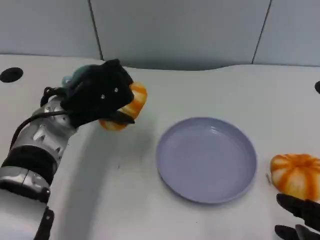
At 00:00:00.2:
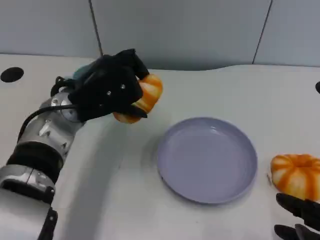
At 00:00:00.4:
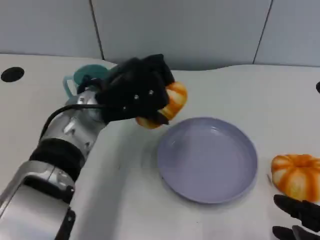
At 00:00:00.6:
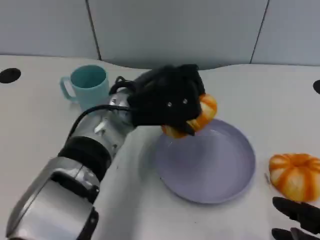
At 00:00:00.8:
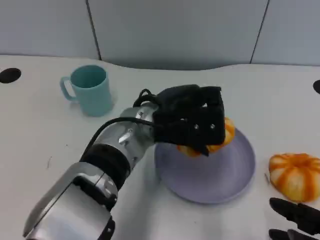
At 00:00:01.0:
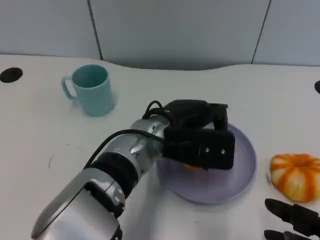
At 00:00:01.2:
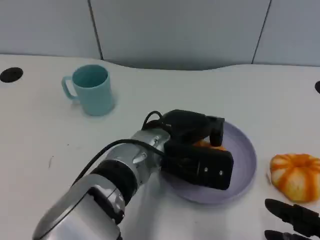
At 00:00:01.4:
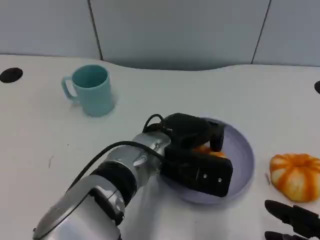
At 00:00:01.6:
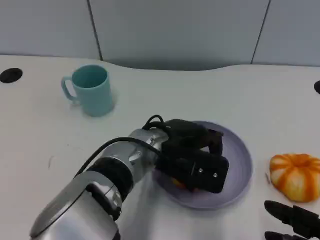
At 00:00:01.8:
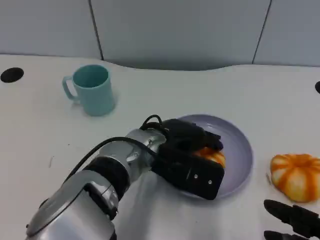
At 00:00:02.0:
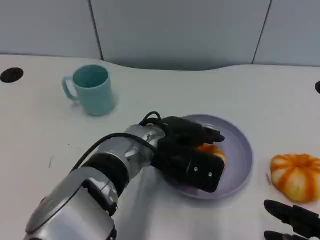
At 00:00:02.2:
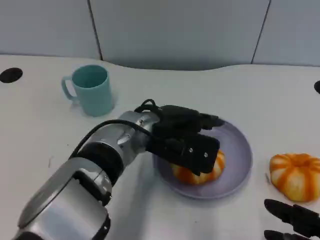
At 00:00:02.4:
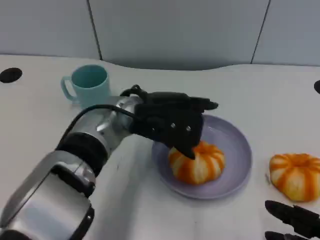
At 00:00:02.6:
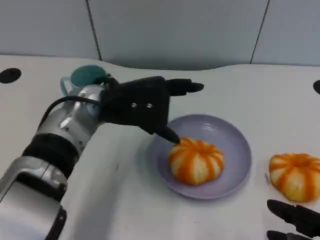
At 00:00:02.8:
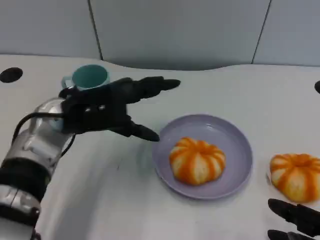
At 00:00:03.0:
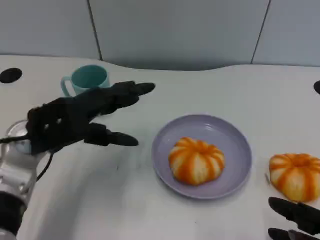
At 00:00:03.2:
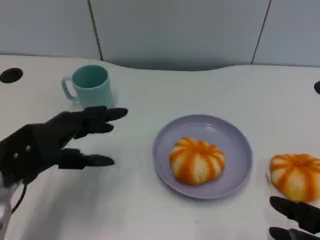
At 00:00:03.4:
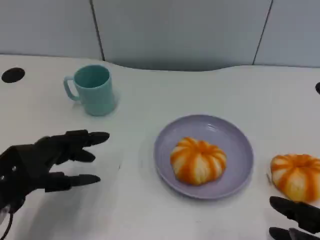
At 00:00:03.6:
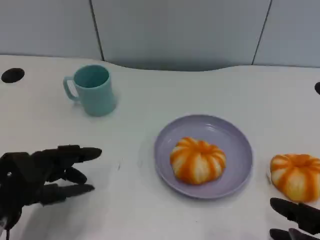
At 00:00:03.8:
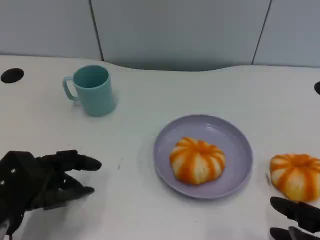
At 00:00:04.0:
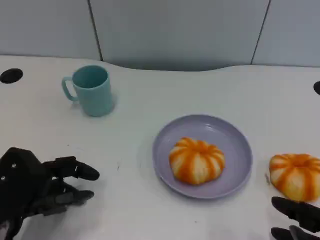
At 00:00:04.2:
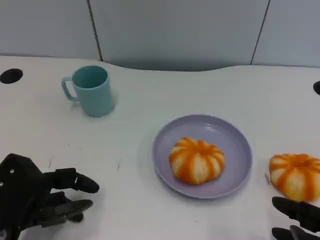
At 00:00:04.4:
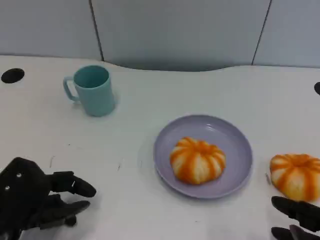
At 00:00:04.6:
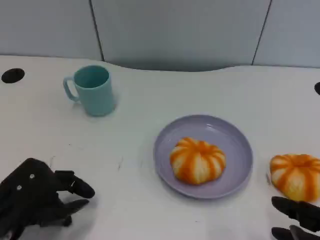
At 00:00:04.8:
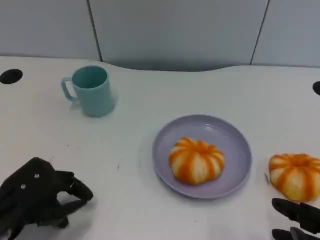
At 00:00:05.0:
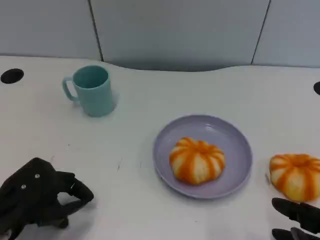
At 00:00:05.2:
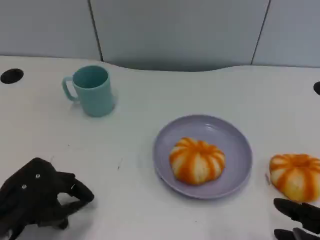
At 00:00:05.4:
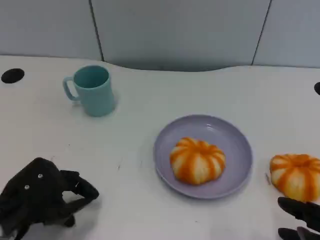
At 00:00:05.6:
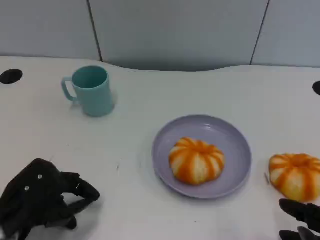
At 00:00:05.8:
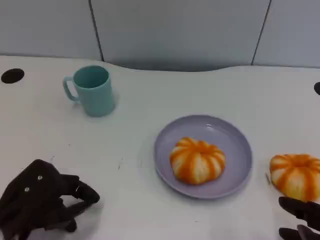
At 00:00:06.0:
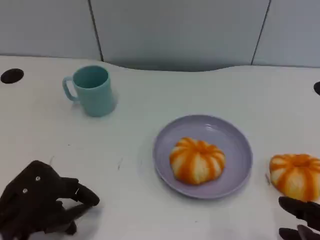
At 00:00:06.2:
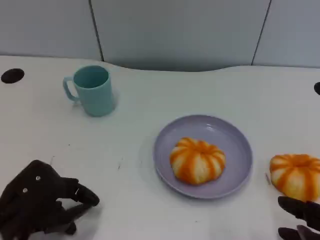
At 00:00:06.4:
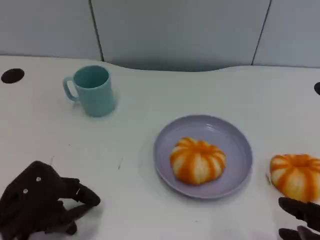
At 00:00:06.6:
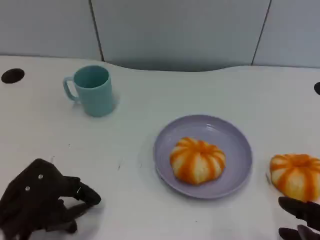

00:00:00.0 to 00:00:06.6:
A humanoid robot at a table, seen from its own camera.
Task of the whole recording: Grasp the bread from the table and place it into the plate.
00:00:00.0 to 00:00:01.6: The left hand shifts some 10 cm to the right.
00:00:01.6 to 00:00:03.2: The left hand is displaced to the left by approximately 20 cm.
00:00:03.2 to 00:00:05.0: The left hand shifts some 5 cm backward.
00:00:05.0 to 00:00:06.6: The hands move only a little.
